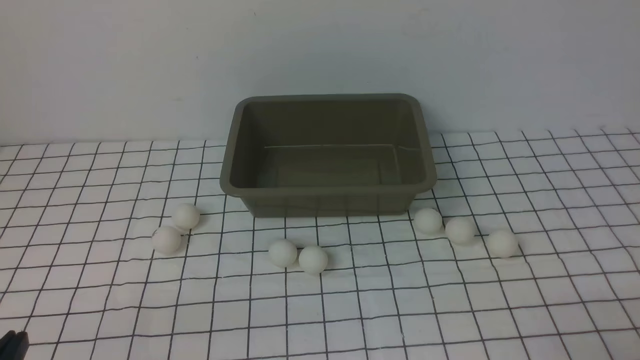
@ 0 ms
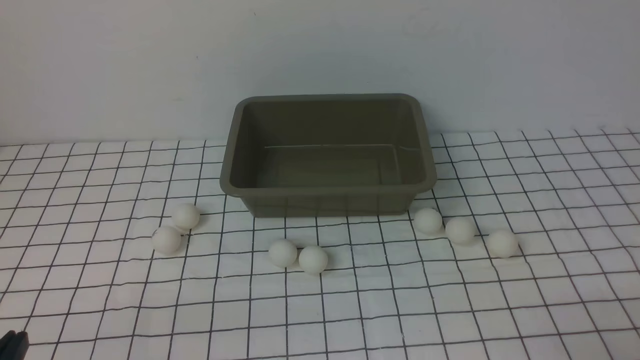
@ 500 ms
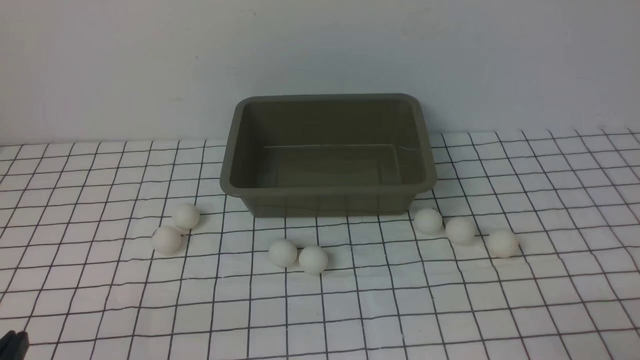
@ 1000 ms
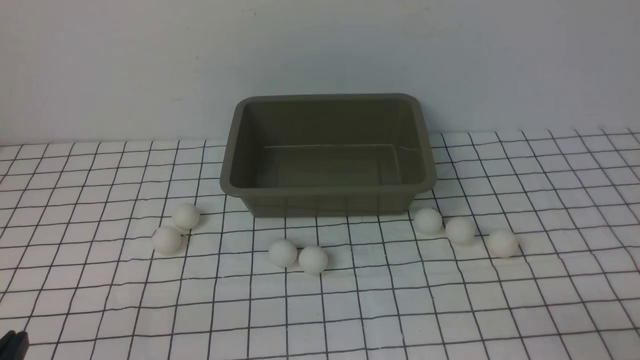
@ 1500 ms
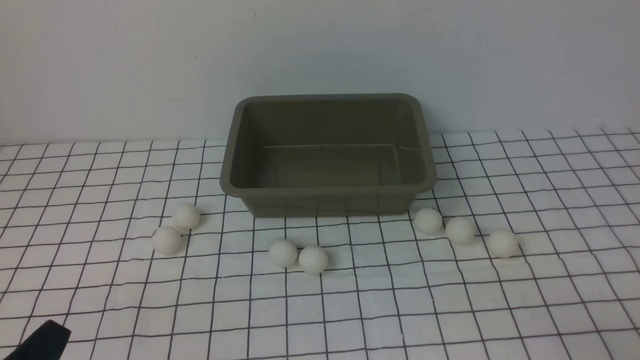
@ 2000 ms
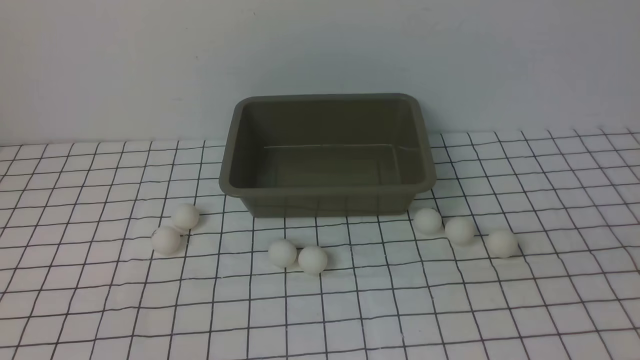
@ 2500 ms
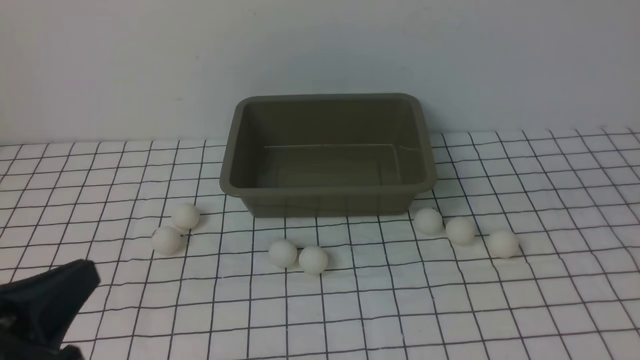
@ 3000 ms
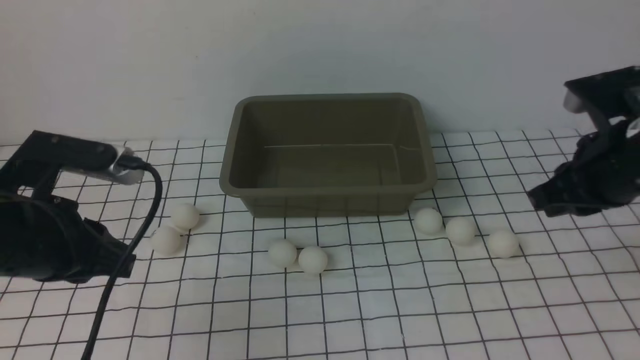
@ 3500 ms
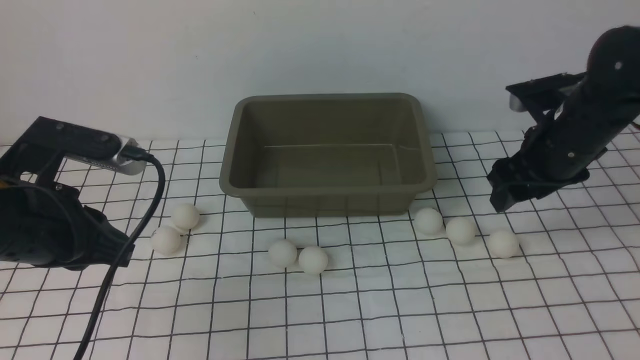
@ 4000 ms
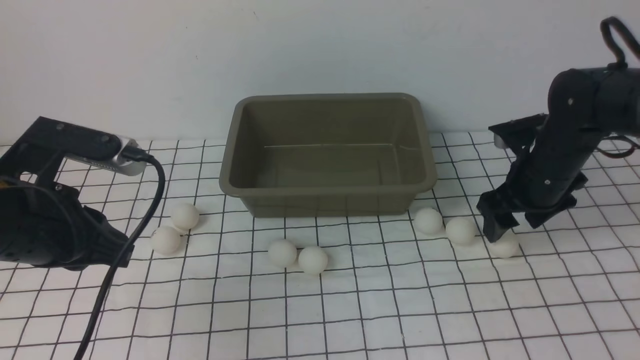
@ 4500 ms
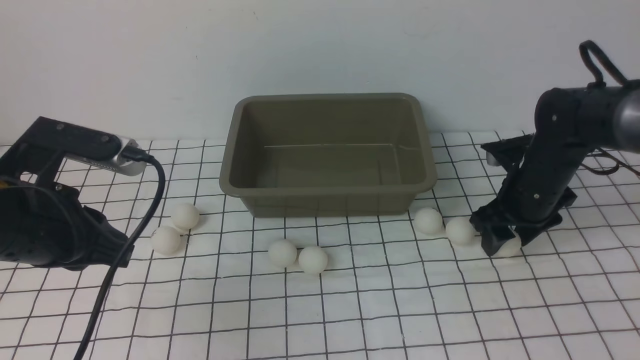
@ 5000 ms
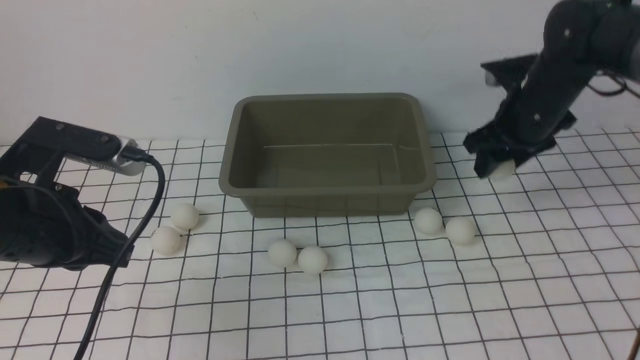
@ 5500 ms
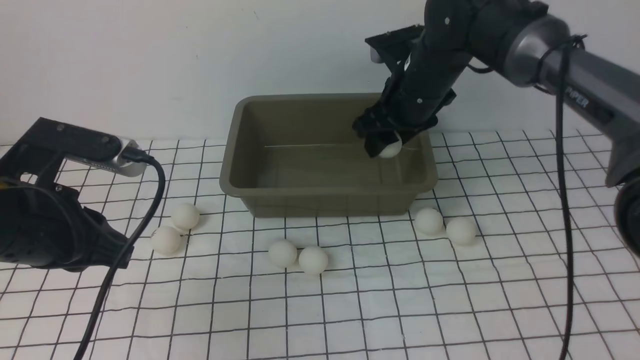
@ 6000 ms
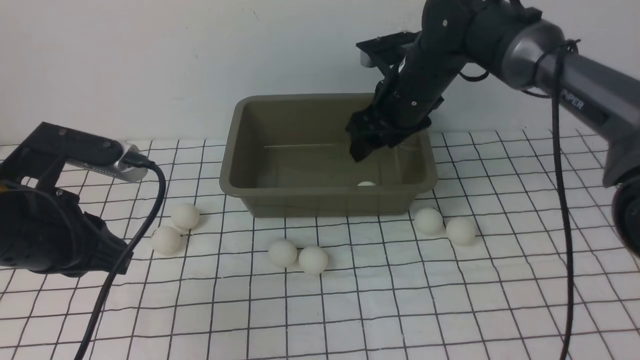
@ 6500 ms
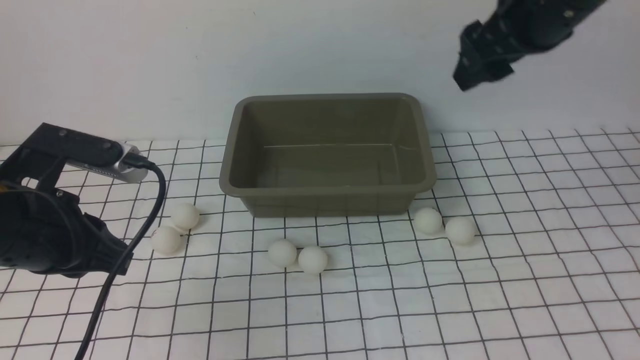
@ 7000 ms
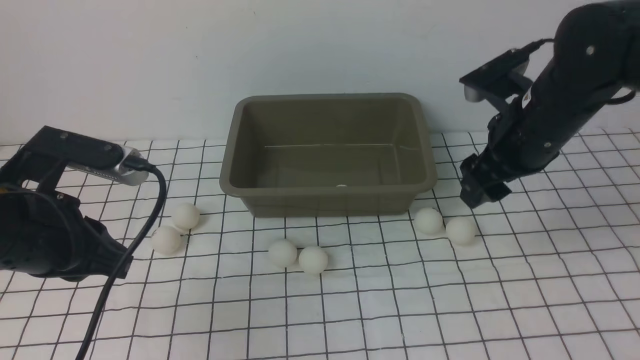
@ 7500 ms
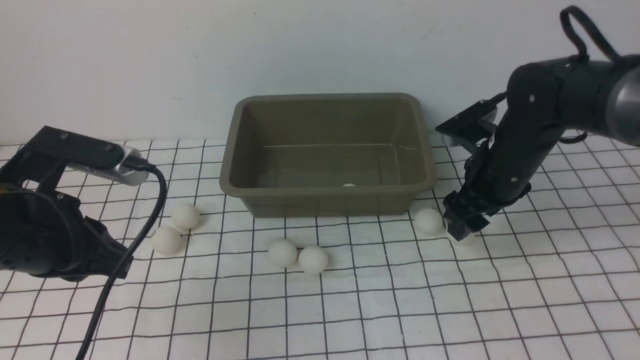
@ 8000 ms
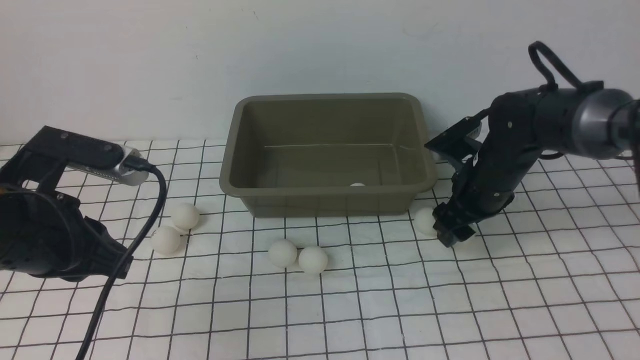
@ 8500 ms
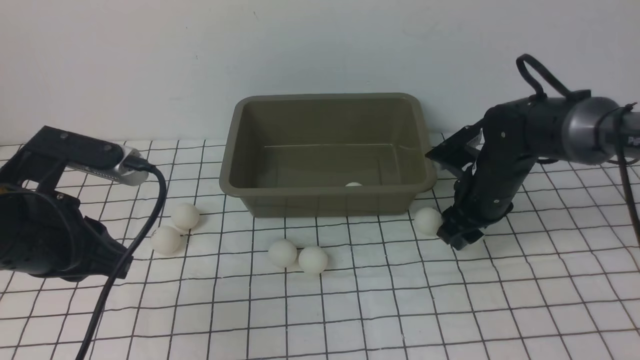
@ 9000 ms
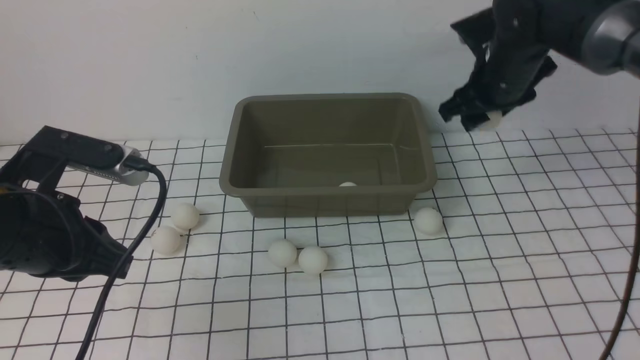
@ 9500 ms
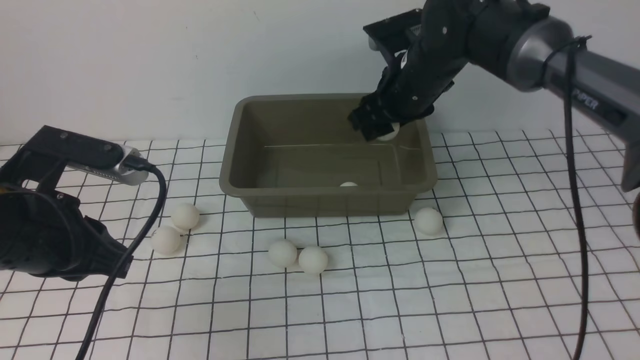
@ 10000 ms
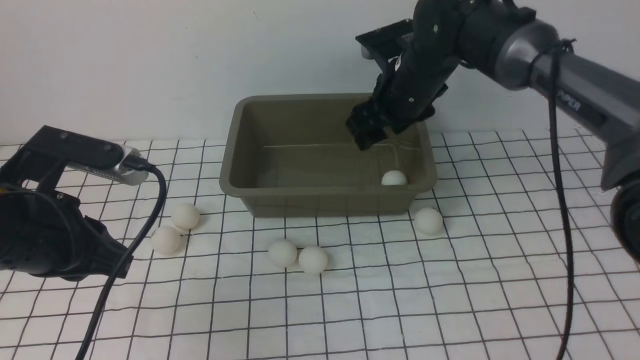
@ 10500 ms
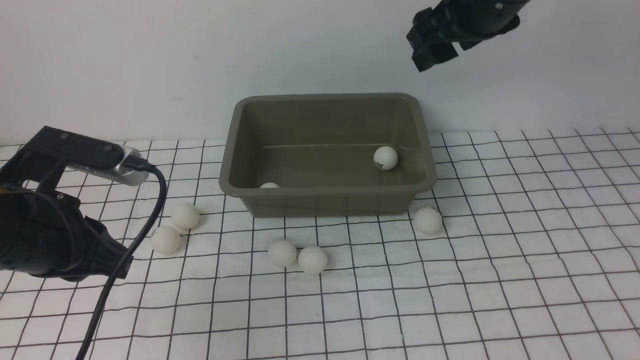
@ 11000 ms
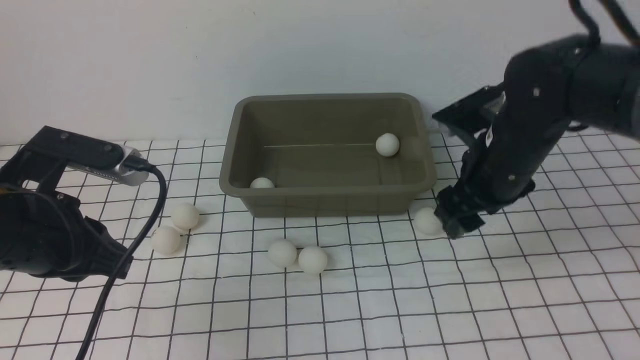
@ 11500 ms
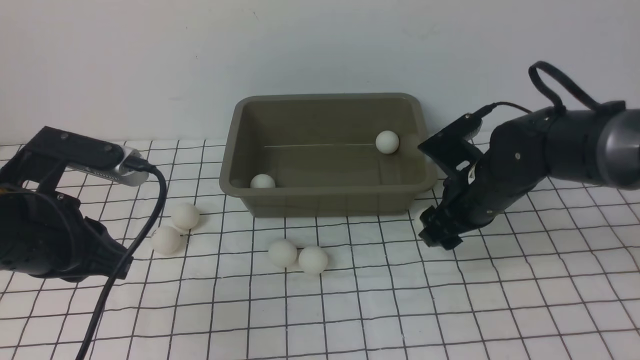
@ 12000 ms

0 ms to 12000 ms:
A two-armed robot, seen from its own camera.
Step, 0 ms to 5000 ms: use the right arm to clamp the table tennis ball closest to it.
Step, 5500 ms to 6500 ms: use the right arm to put the table tennis ball into the box.
Step, 7000 ms to 9000 ms: use the right arm to clamp the table tennis ball closest to it.
Step, 9500 ms to 10500 ms: use the right arm to put the table tennis ball into the box.
2000 ms to 4000 ms: The left gripper shifts approximately 20 cm forward and upward, while the right gripper moves forward, about 35 cm, and opens up.
4000 ms to 6000 ms: The right gripper heads to the left, upward and forward, covering roughly 15 cm.
6000 ms to 8000 ms: The right gripper goes some 10 cm to the right, backward and downward.
8000 ms to 10000 ms: The right gripper moves to the left, forward and upward, some 15 cm.
10000 ms to 12000 ms: The right gripper goes some 15 cm backward, downward and to the right.

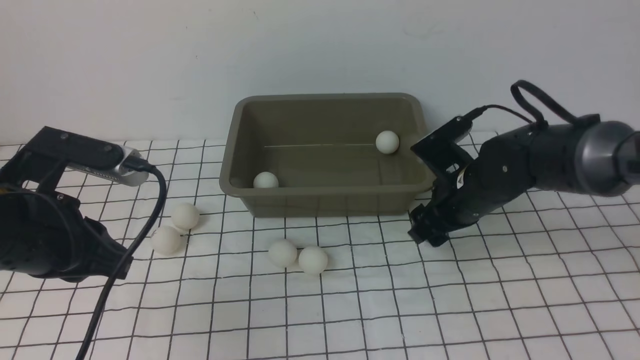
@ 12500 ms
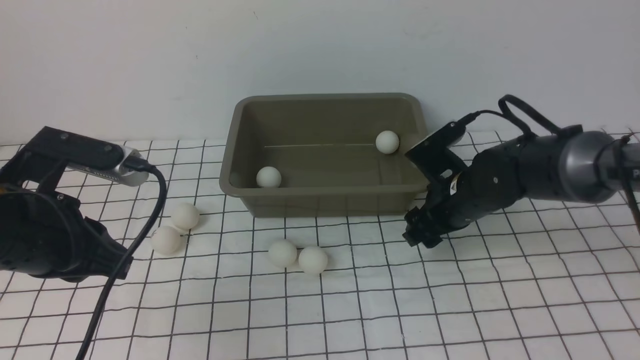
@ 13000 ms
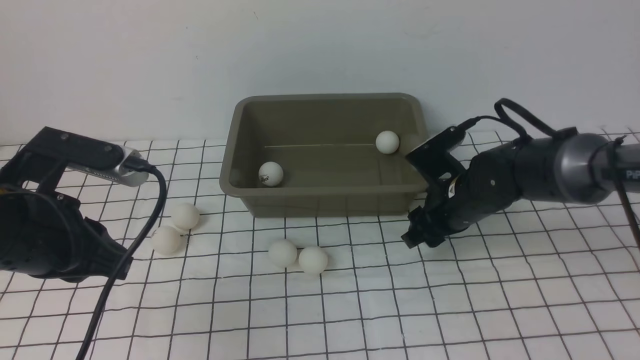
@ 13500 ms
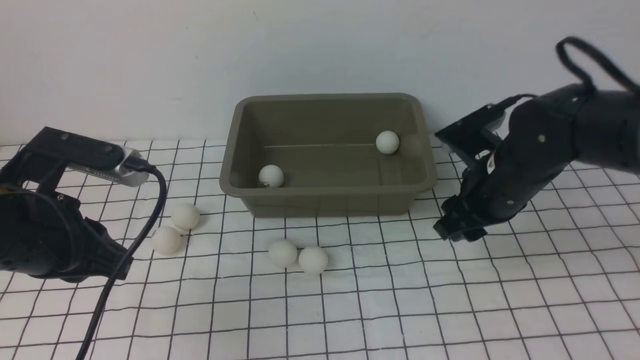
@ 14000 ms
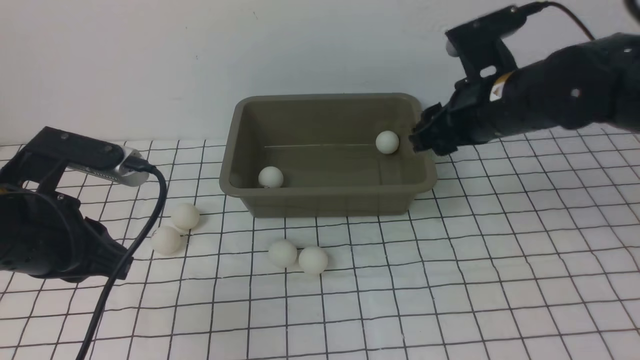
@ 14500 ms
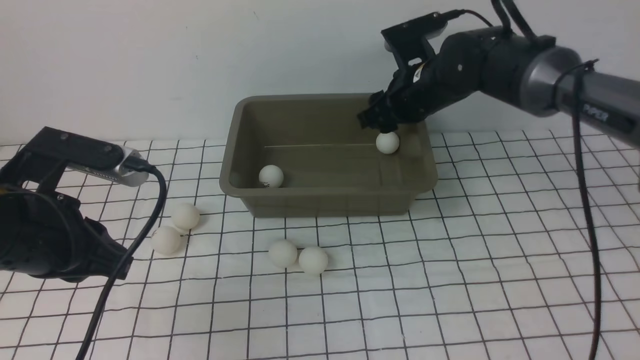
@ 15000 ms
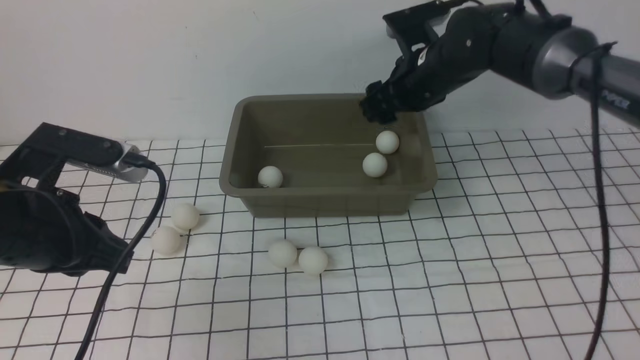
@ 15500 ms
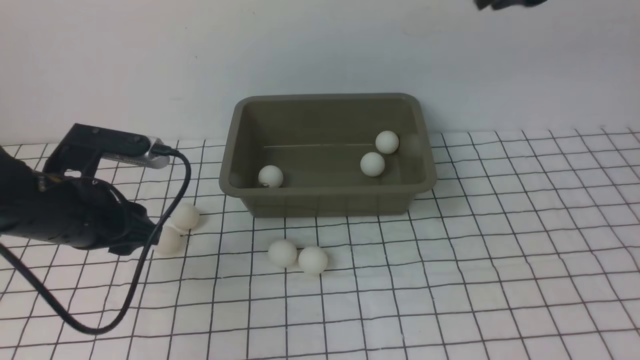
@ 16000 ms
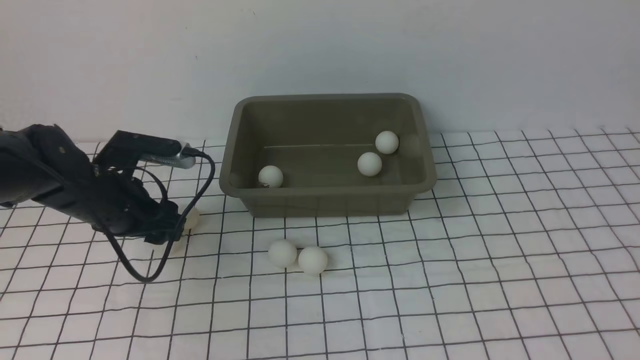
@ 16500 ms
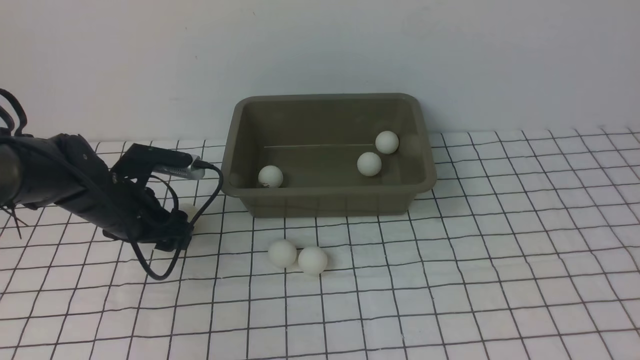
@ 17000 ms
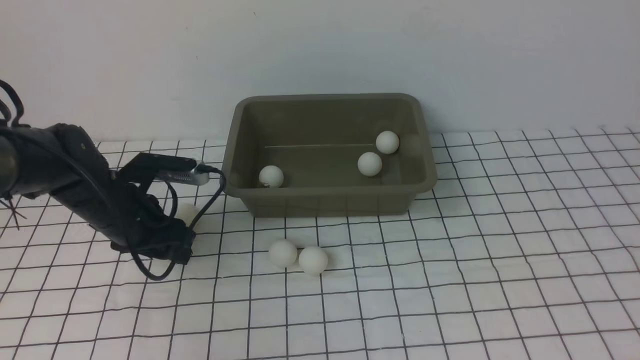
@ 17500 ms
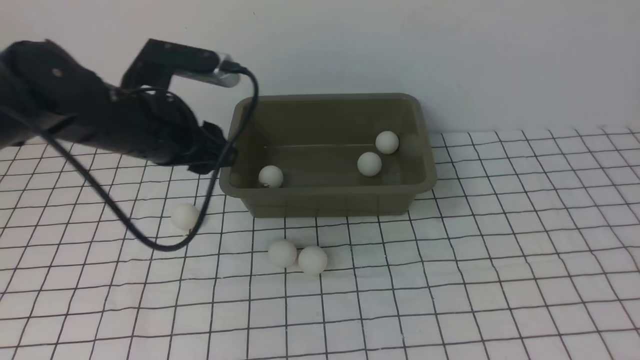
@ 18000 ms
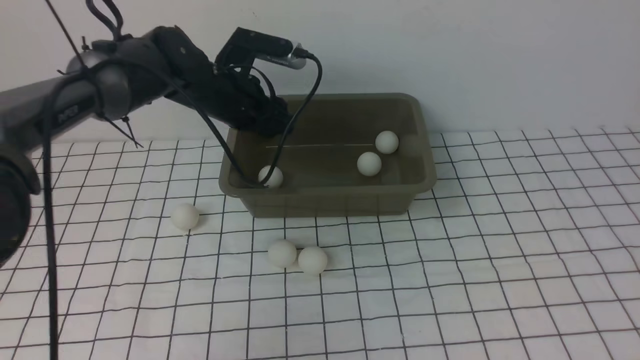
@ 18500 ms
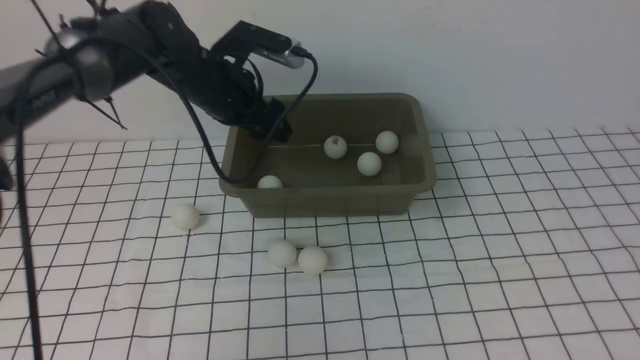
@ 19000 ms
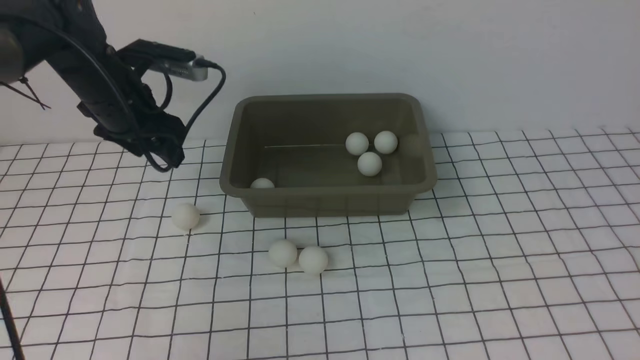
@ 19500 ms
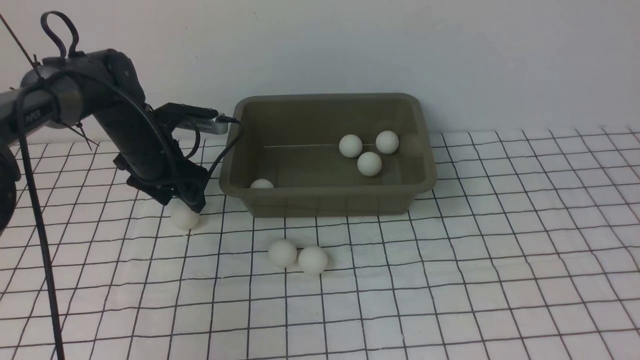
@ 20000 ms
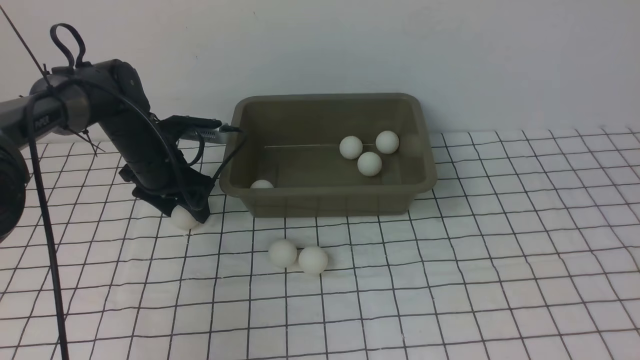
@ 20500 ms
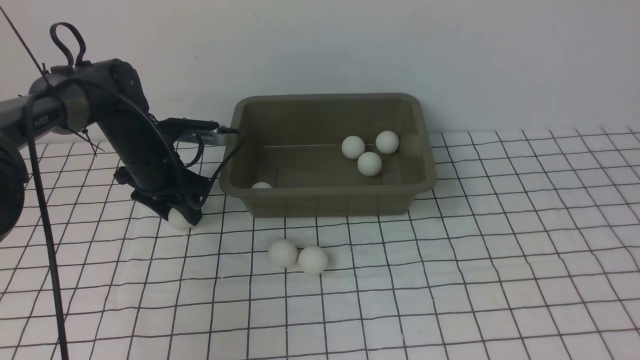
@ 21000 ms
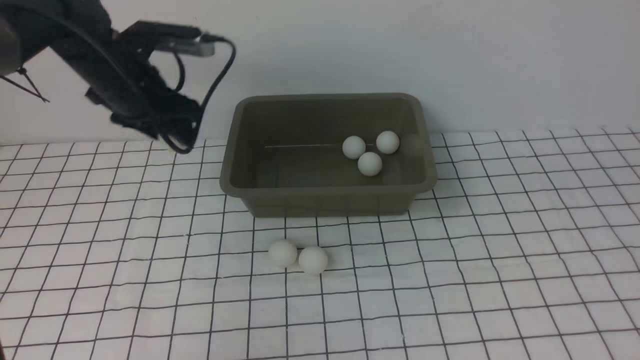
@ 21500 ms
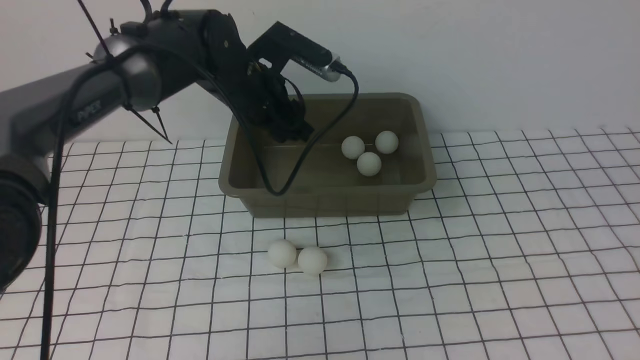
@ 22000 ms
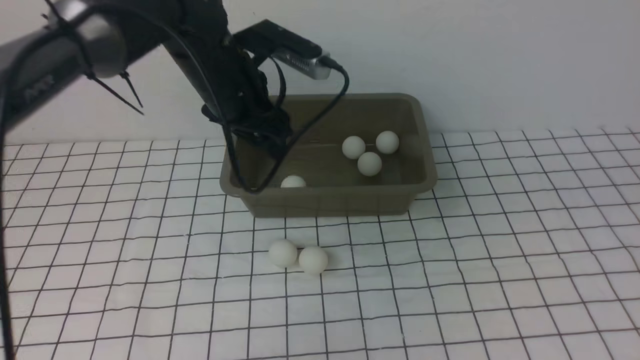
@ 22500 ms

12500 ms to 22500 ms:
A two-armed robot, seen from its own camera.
Step, 14000 ms to 15000 ms: use the right arm to put the table tennis ball into the box.
Step, 15500 ms to 17500 ms: use the left arm to clamp the table tennis ball closest to it.
Step, 18000 ms to 18500 ms: use the left arm to put the table tennis ball into the box.
Step, 19000 ms to 21000 ms: use the left arm to clamp the table tennis ball closest to it.
Step, 21500 ms to 22000 ms: use the left arm to put the table tennis ball into the box.
12500 ms to 14500 ms: The right gripper goes roughly 10 cm upward.
14500 ms to 16500 ms: The left gripper shifts about 15 cm forward and downward, and opens up. The right gripper goes some 35 cm upward and backward, and closes.
16500 ms to 18500 ms: The right gripper heads backward, covering about 10 cm, while the left gripper swings up and down, some 15 cm each way, with 2 reversals.
18500 ms to 20500 ms: The right gripper heads downward, covering approximately 5 cm; the left gripper shifts roughly 15 cm to the left and downward.
20500 ms to 22500 ms: The left gripper shifts some 20 cm upward and to the right.
